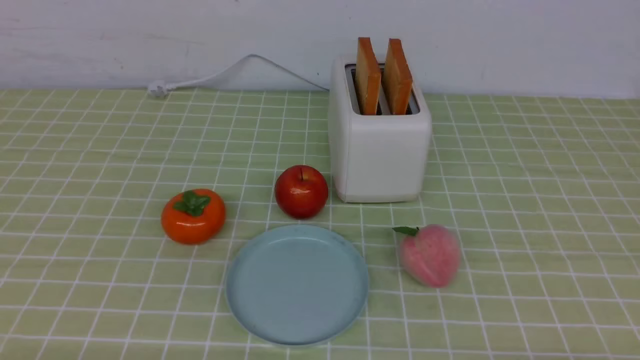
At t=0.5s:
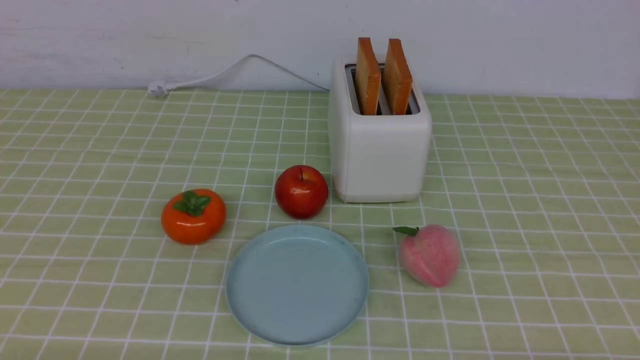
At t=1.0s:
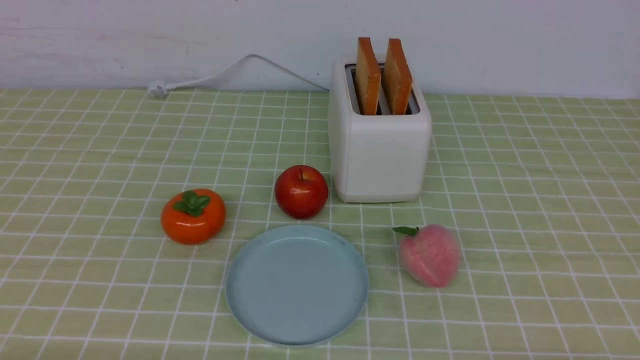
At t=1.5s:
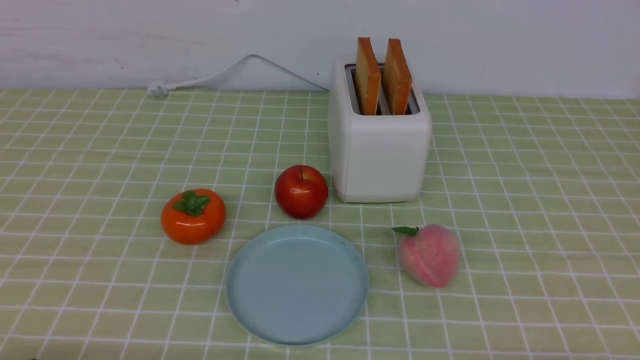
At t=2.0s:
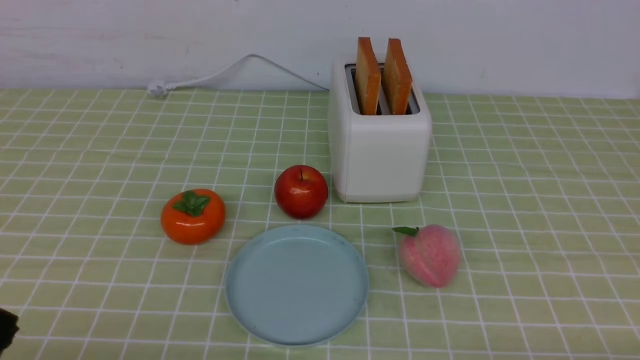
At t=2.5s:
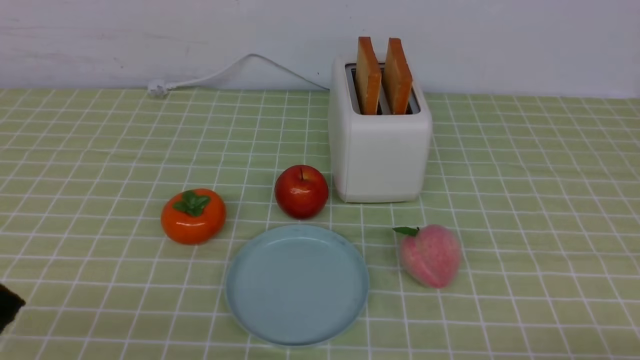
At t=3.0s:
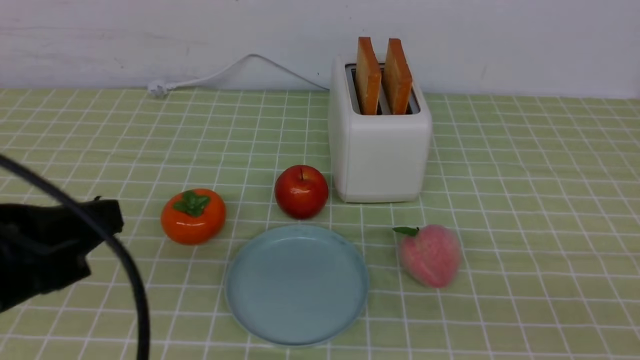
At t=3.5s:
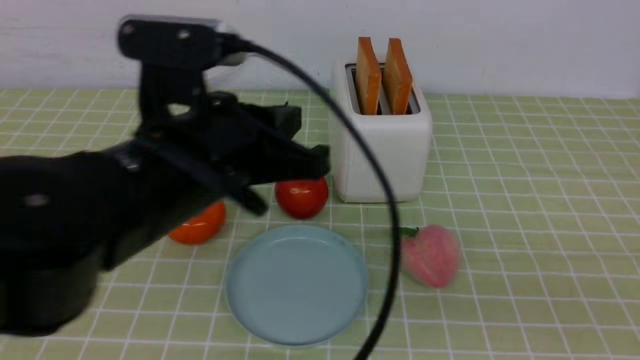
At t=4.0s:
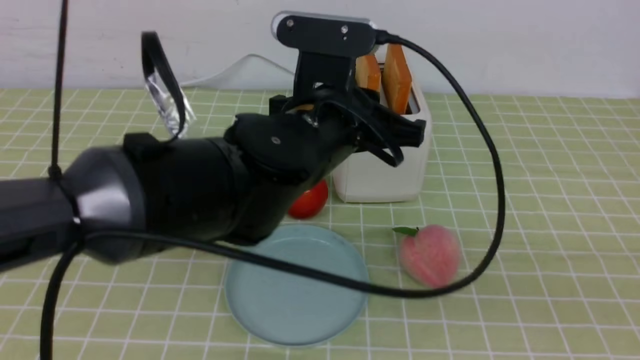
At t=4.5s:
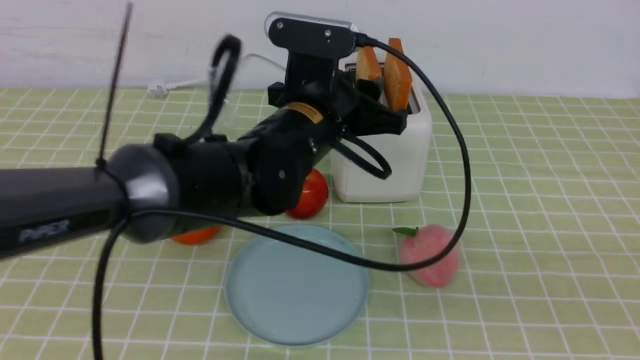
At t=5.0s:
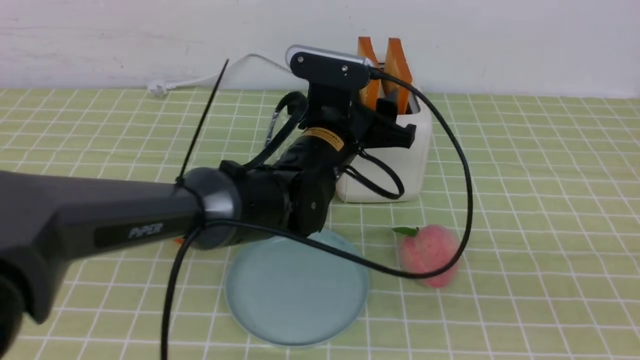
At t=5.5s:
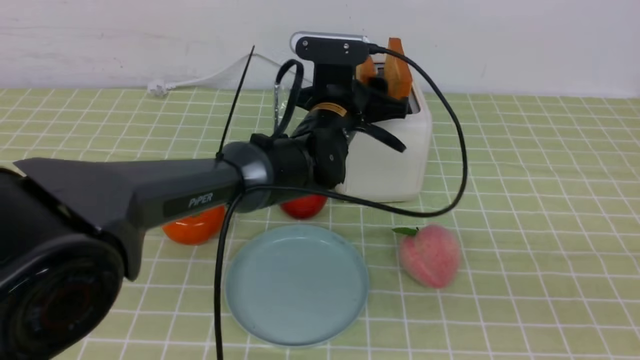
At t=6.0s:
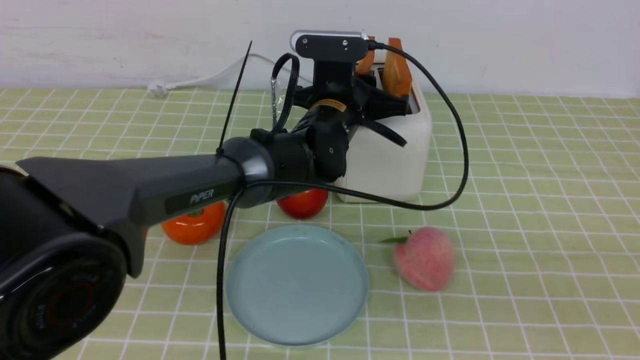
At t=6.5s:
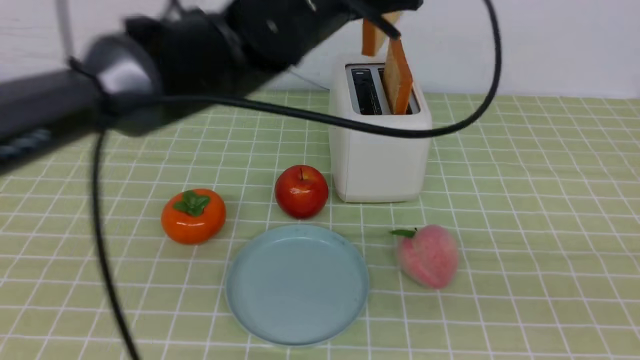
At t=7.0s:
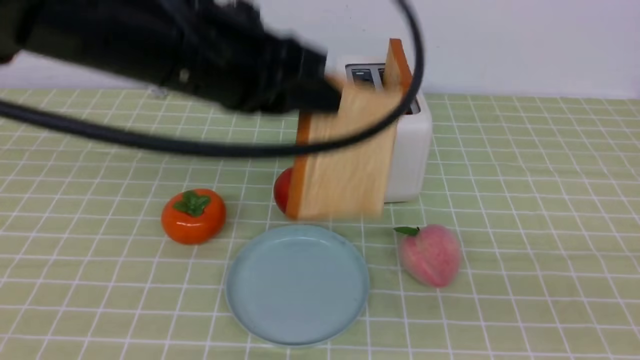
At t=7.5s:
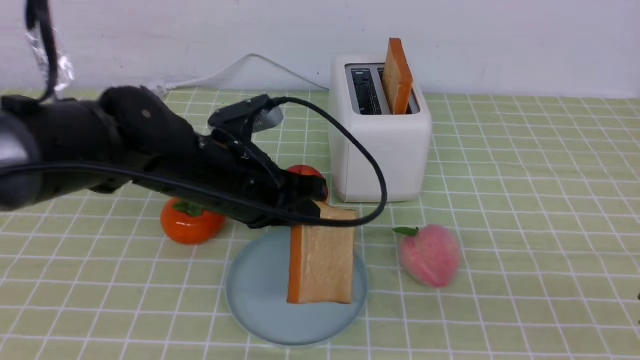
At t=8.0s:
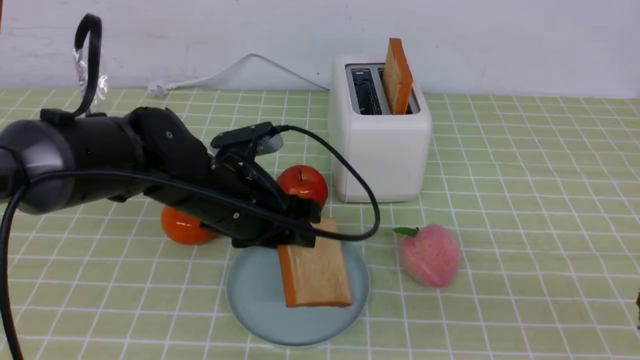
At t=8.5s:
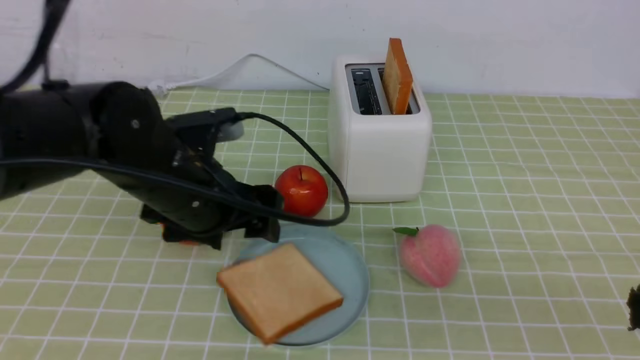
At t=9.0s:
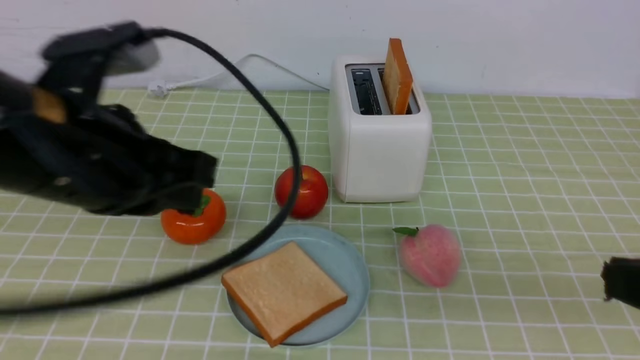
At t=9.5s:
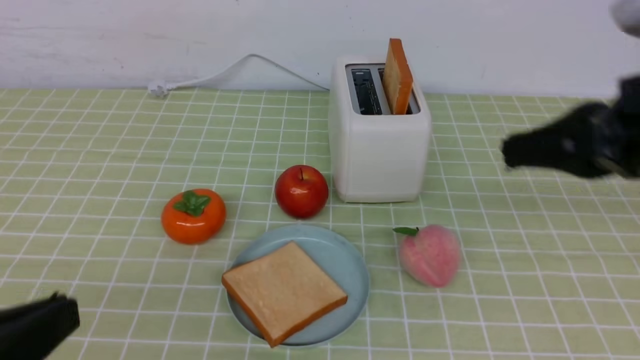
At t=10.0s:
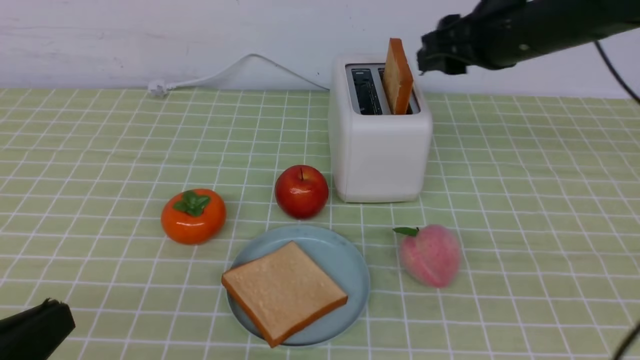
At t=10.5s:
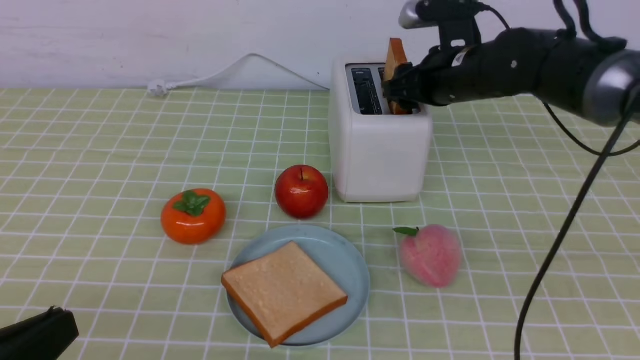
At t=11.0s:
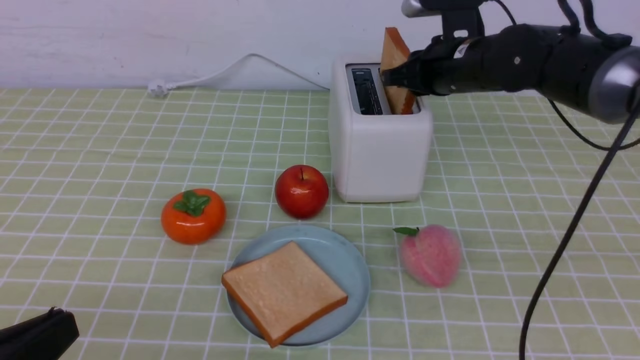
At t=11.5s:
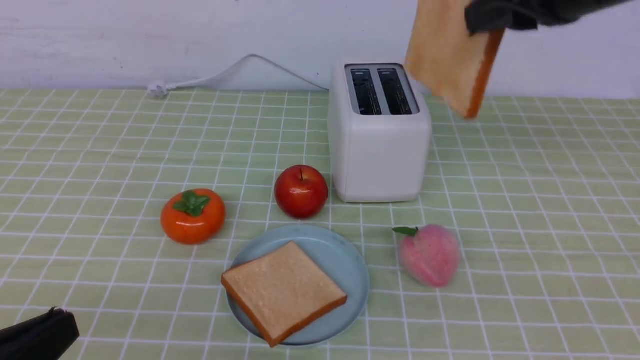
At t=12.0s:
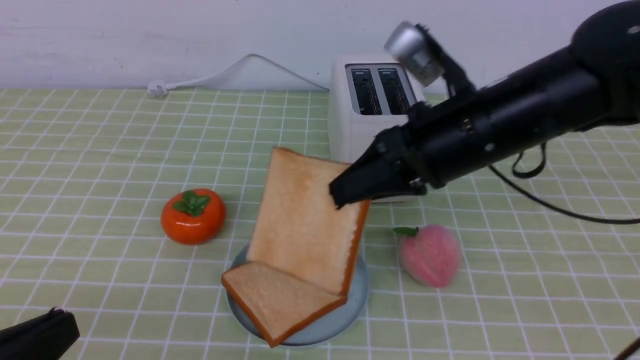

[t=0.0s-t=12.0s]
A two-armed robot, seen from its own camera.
Task of the whole recording: take toasted bread from bread machine on green coffee tablecloth place on plate.
Step, t=0.0s to t=6.0s: use the left arm to take out a slice of bread.
Step, t=6.5s to t=8.5s: use the left arm to put a slice of bread into the empty plate.
Step, t=9.0s to t=11.0s: use the right arm to take out a slice of bread.
t=2.0s to t=4.0s: The left gripper travels forward and to the right by approximately 35 cm. The right gripper goes about 15 cm upward, and closes.
t=4.0s to t=6.0s: The left gripper is displaced forward by about 10 cm, and opens, then closes once more.
t=6.0s to t=8.0s: The left gripper goes some 15 cm backward and to the left, goes upward and returns, about 15 cm each way, and opens up.
t=8.0s to t=10.0s: The left gripper goes approximately 30 cm backward and to the left, and closes up. Meanwhile the right gripper travels forward by roughly 30 cm, and opens its fingers.
t=10.0s to t=12.0s: The right gripper travels backward and to the left by approximately 10 cm, and closes its fingers.

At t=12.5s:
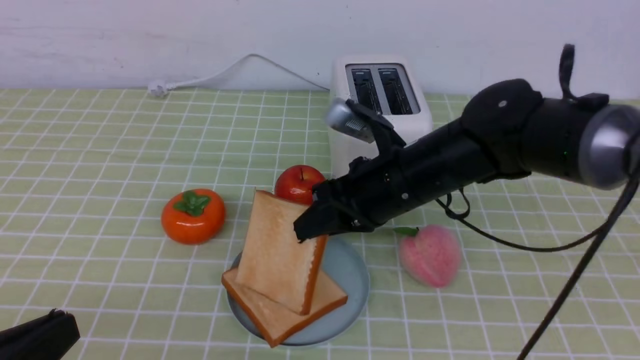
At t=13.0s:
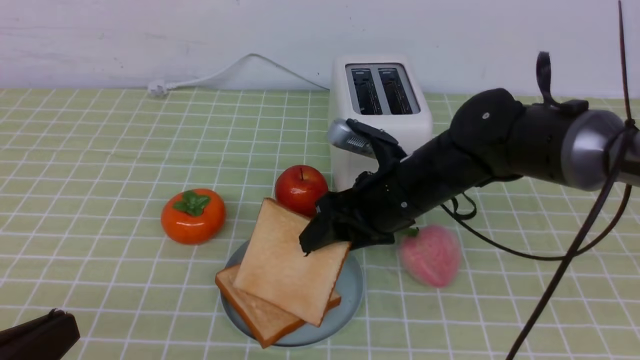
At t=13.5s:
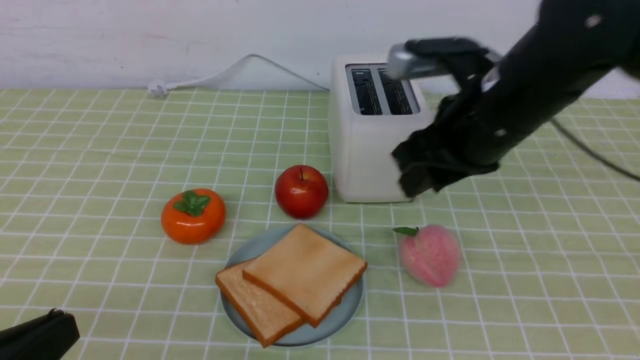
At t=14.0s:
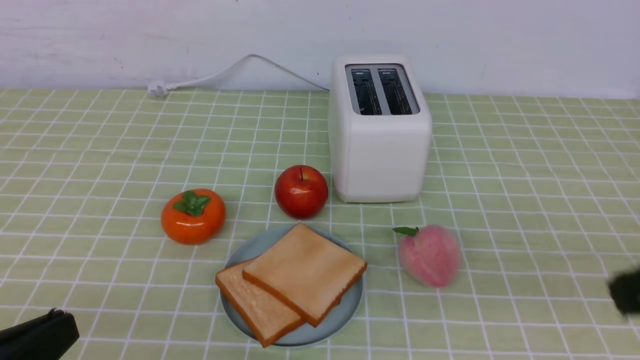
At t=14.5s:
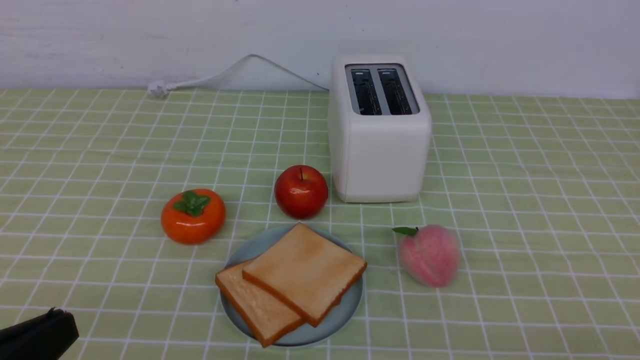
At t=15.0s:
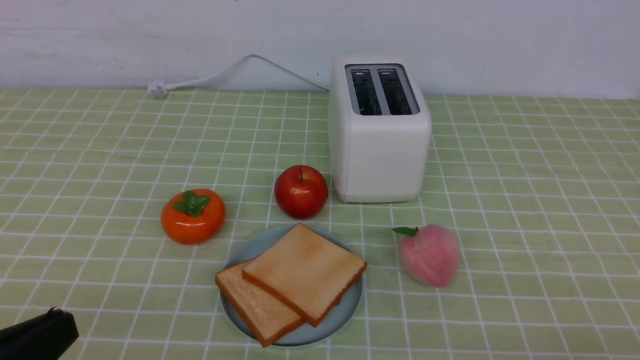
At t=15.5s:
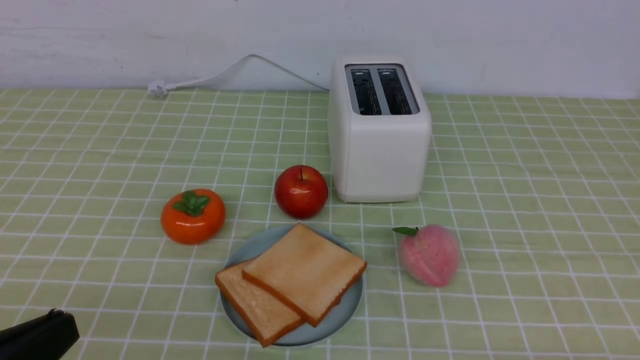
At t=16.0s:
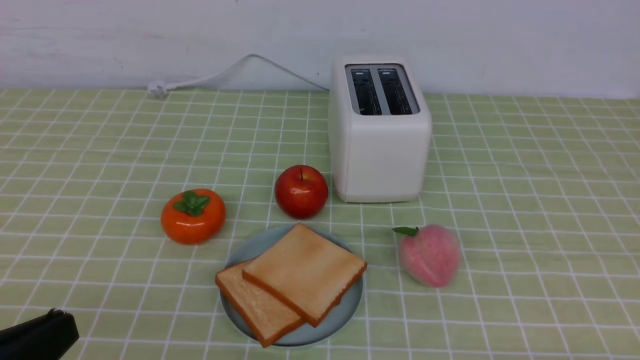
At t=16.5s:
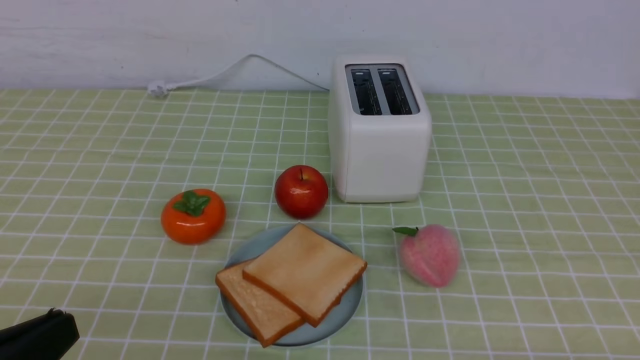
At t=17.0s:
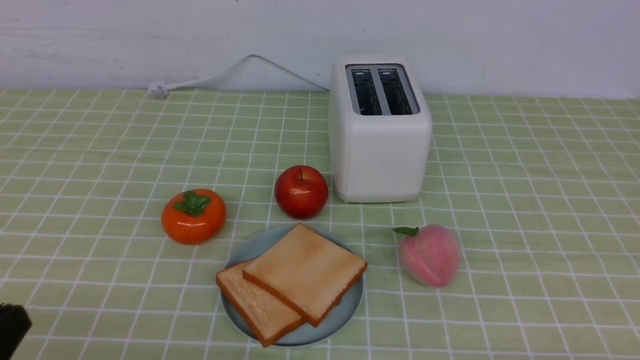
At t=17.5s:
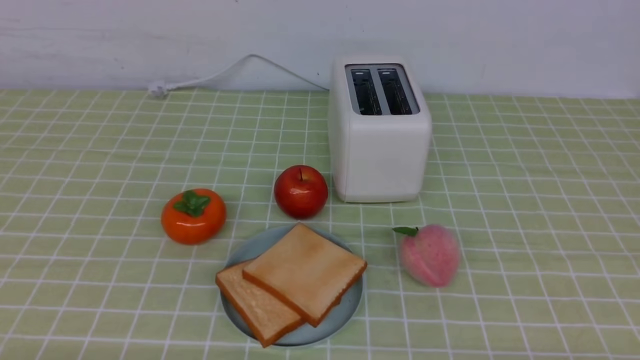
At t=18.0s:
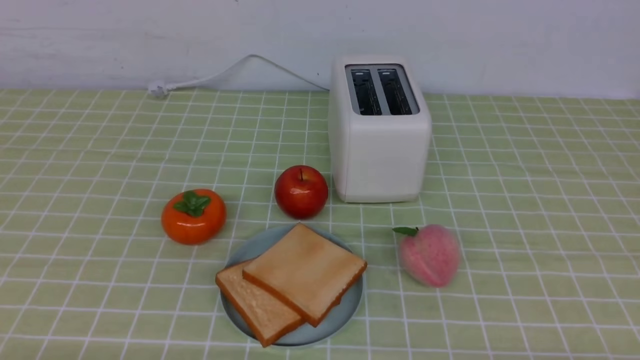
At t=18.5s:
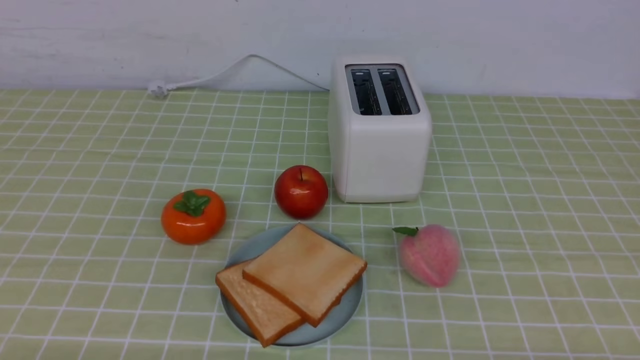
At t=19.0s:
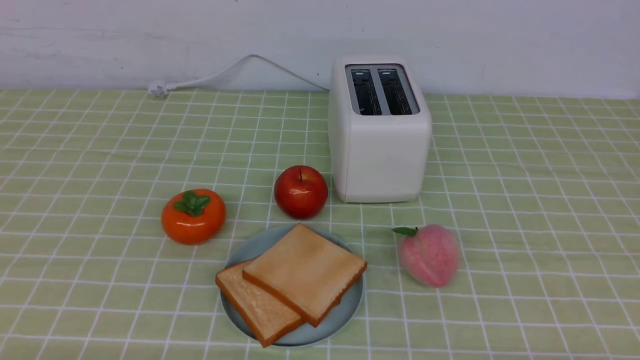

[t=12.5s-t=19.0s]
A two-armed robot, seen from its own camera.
Task of the whole recording: take toasted bread from bread machine on green coffee tablecloth place on plate.
t=12.5s to t=14.5s: The right gripper shifts about 35 cm backward and to the right, and opens and closes again.
t=17.0s to t=19.0s: The left gripper moves downward, roughly 5 cm.
